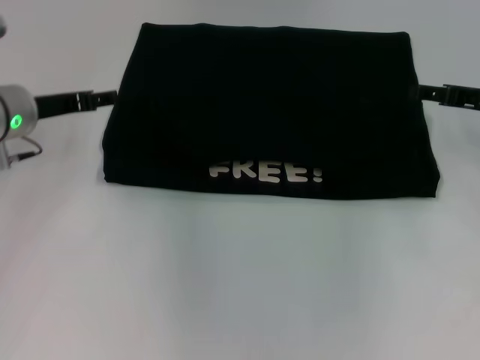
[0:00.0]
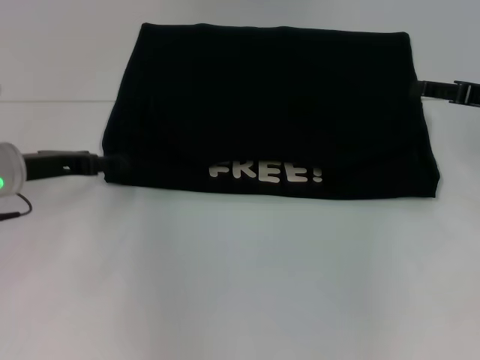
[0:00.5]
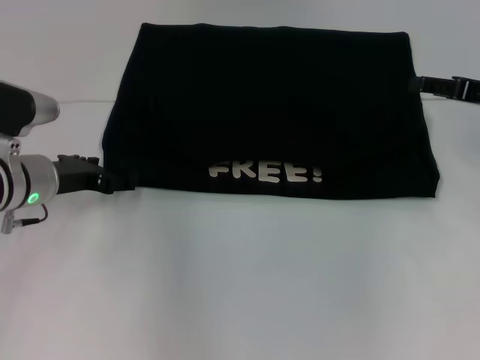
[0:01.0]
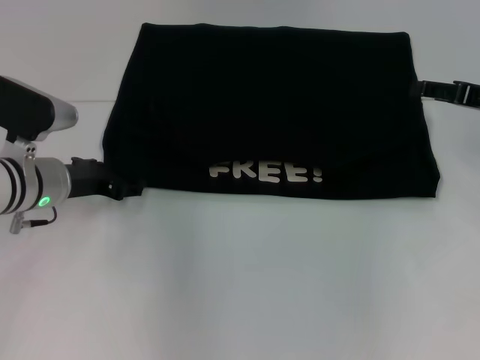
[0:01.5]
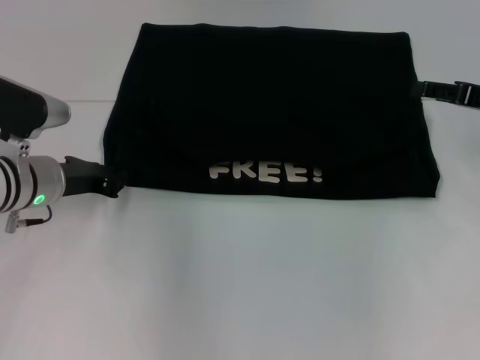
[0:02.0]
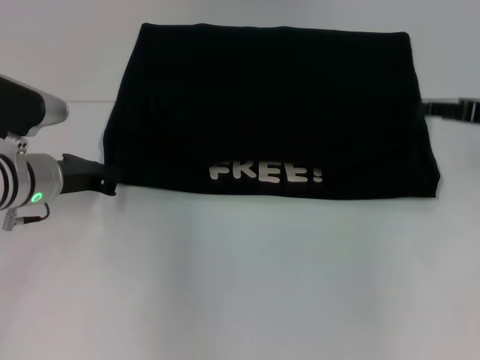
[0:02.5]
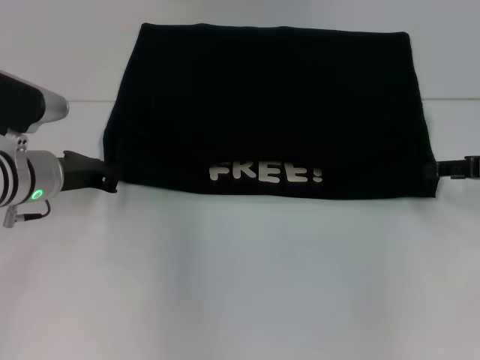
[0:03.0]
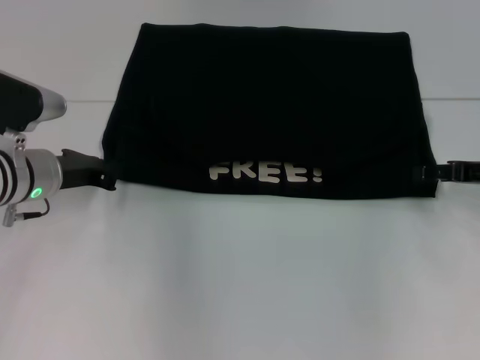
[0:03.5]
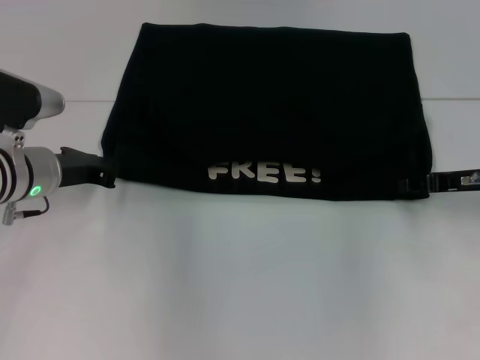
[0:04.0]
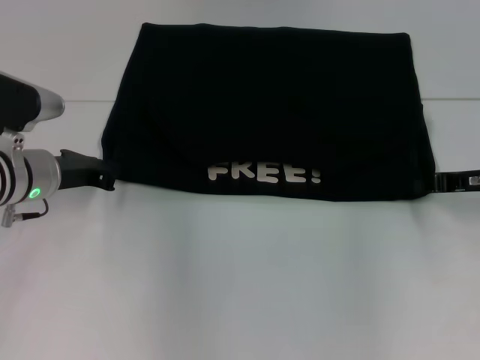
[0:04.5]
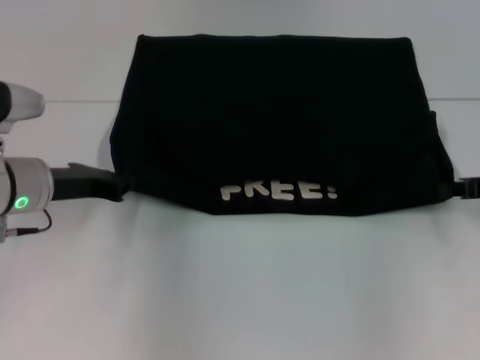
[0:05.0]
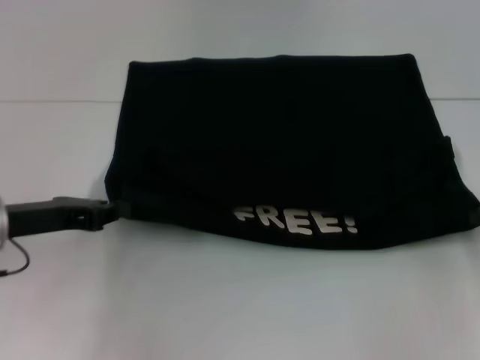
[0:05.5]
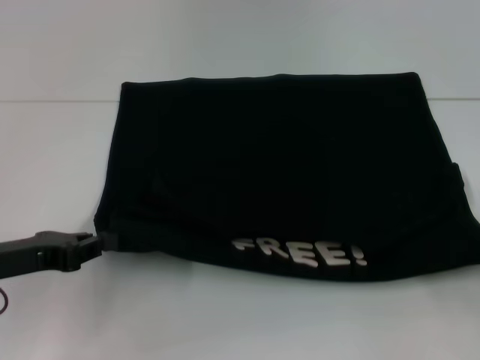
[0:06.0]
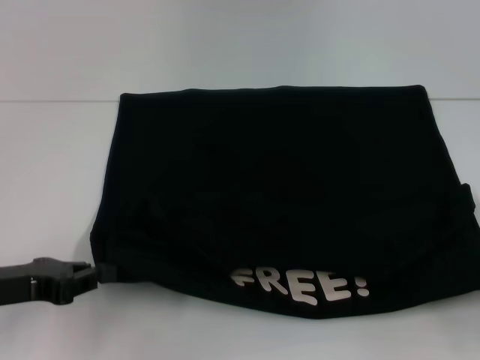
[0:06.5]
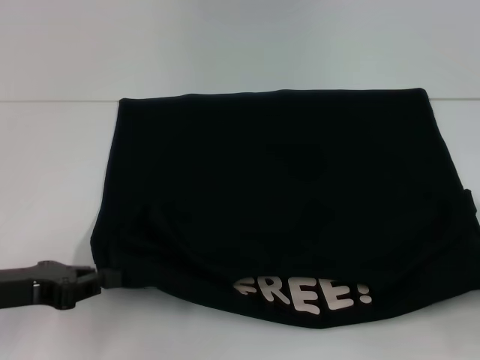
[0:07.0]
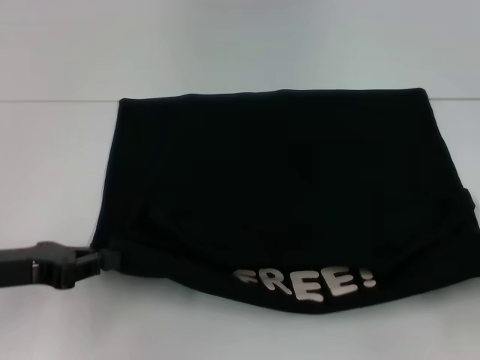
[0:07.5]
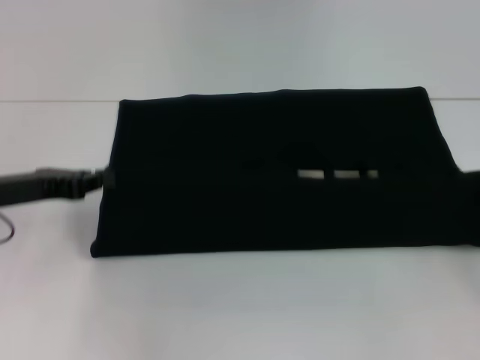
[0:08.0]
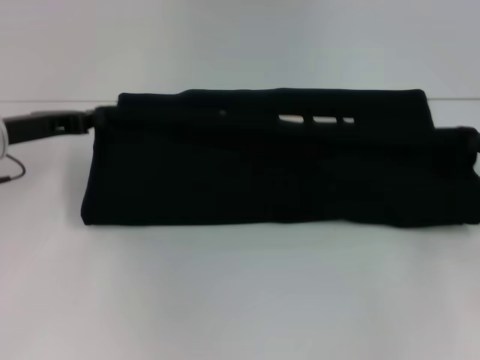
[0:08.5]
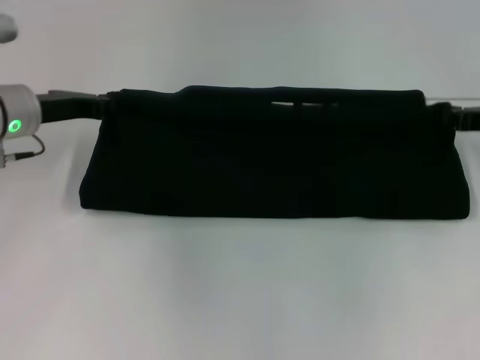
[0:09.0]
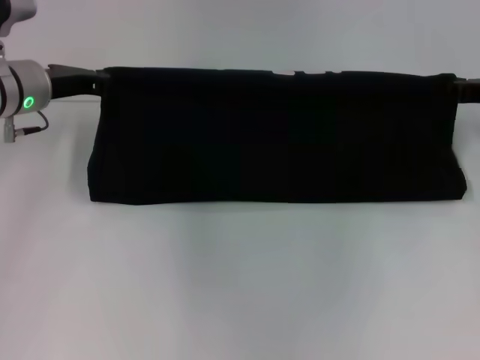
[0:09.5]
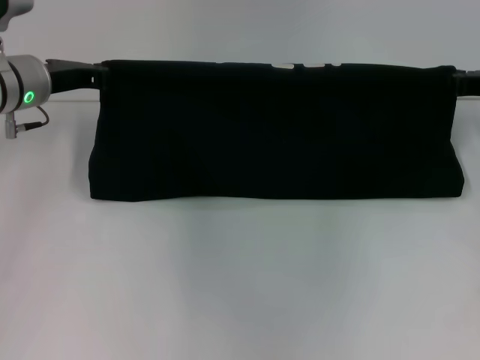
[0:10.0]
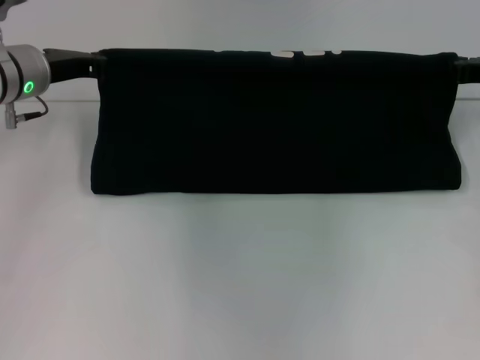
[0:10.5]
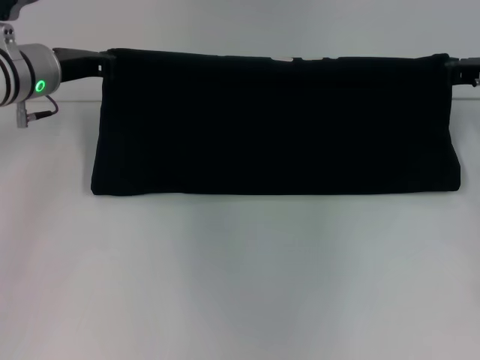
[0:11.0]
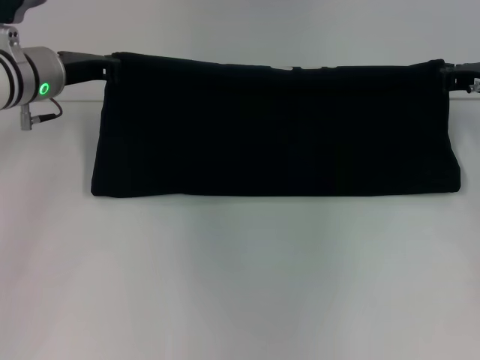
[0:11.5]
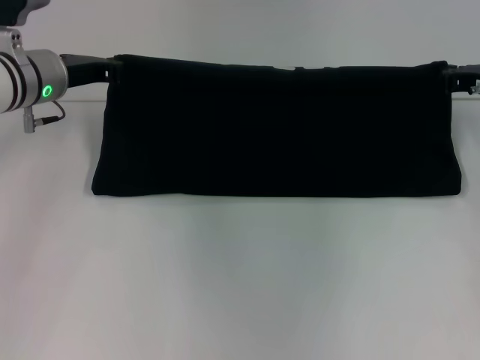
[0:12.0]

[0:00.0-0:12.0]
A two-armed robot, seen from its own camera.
Step, 0.0 to 6.5 s: Pull the clothes with your left hand.
Step, 0.0 to 6.5 s: Pull the clothes with your right hand.
0.0 to 2.0 s: The left gripper moves roughly 5 cm, and closes.
2.0 to 4.0 s: The right gripper travels downward by roughly 5 cm.
4.0 to 6.0 s: The left gripper goes about 15 cm backward and to the left. The right gripper goes roughly 15 cm backward and to the right, and closes up.
6.0 to 8.0 s: The left gripper is displaced forward by some 5 cm.
8.0 to 10.0 s: The right gripper goes some 20 cm forward and to the left; the left gripper is displaced forward by about 10 cm.
10.0 to 12.0 s: There are only small adjustments of the grippers.

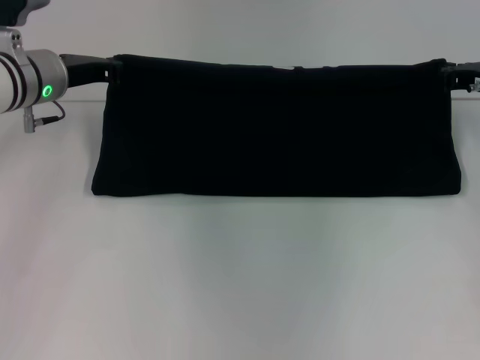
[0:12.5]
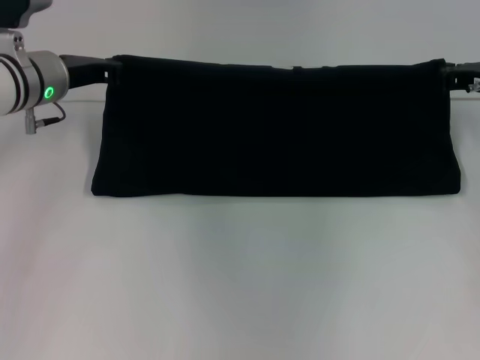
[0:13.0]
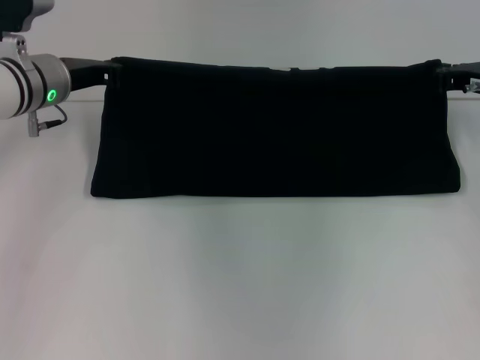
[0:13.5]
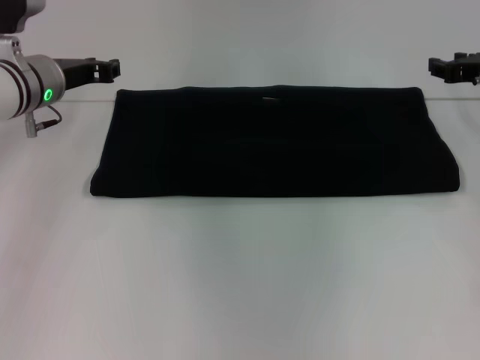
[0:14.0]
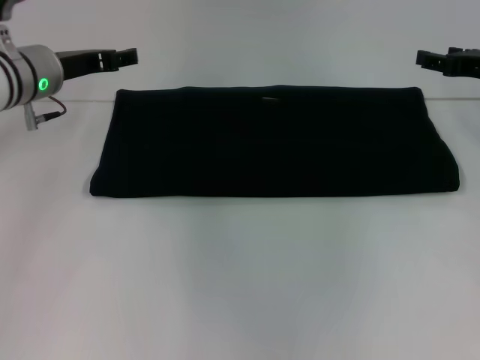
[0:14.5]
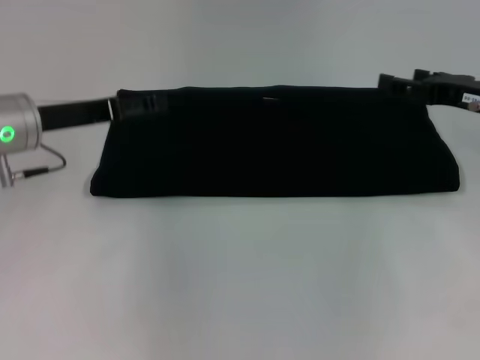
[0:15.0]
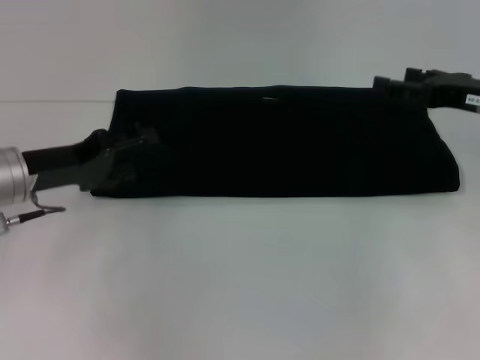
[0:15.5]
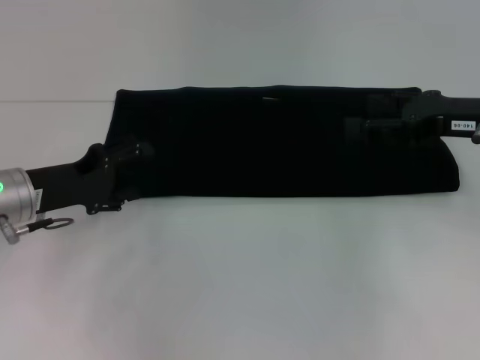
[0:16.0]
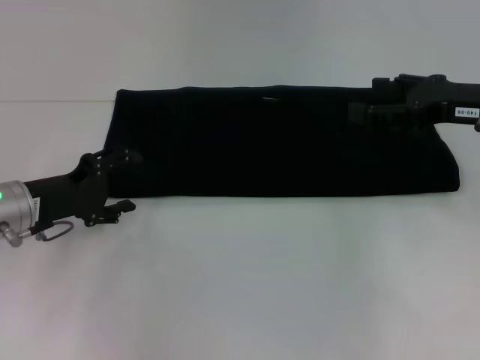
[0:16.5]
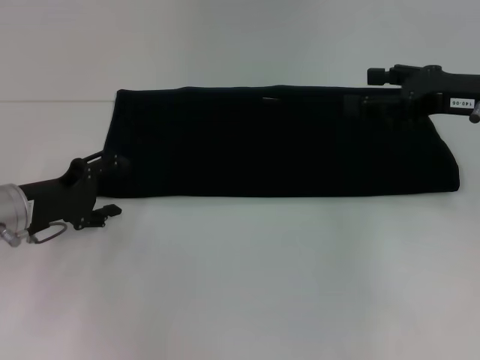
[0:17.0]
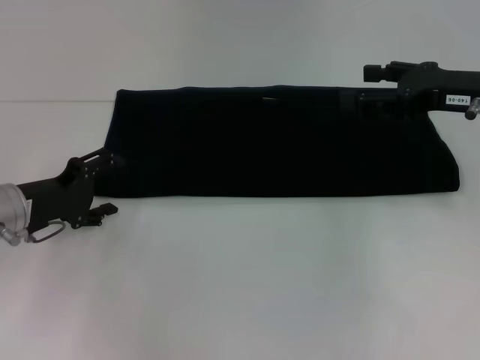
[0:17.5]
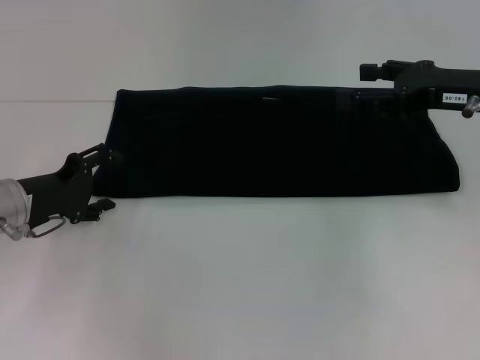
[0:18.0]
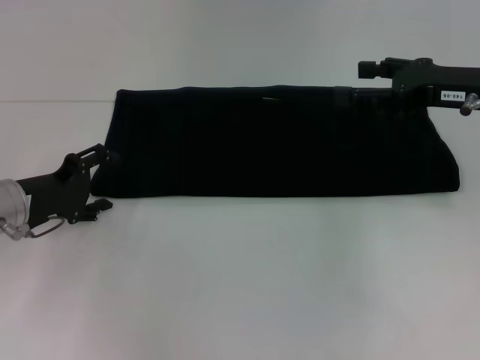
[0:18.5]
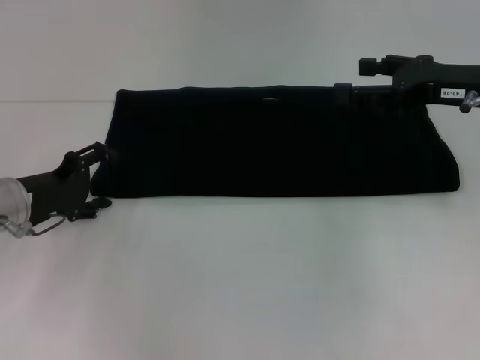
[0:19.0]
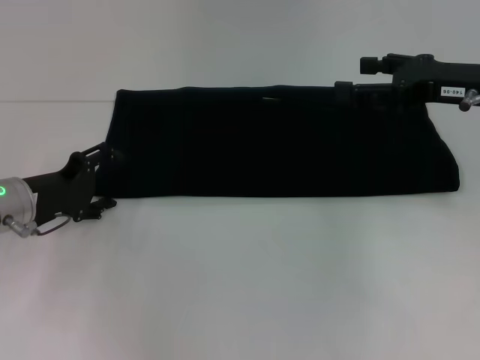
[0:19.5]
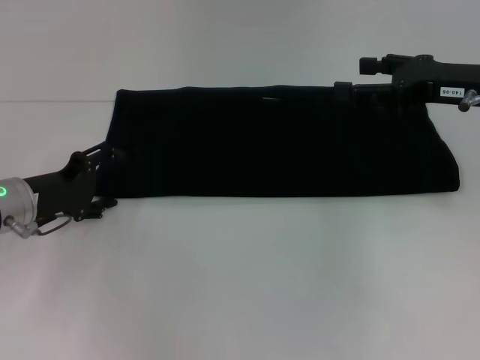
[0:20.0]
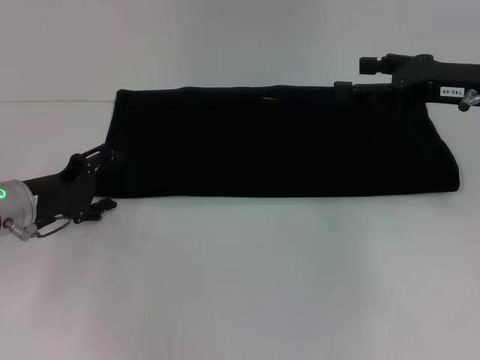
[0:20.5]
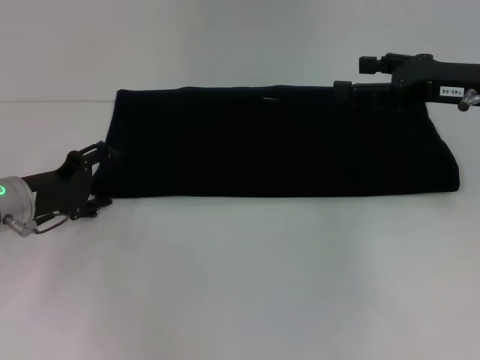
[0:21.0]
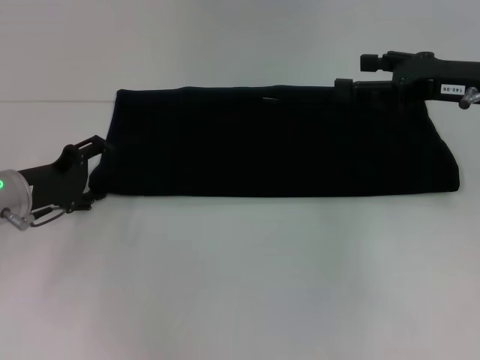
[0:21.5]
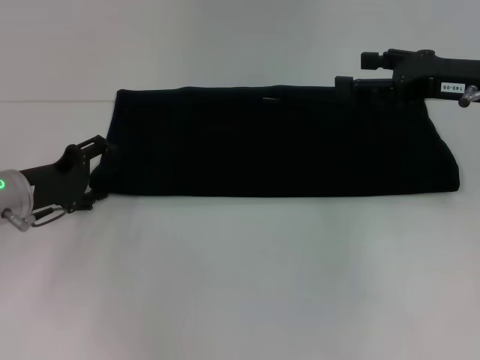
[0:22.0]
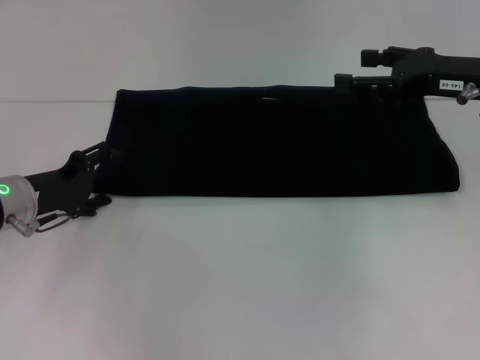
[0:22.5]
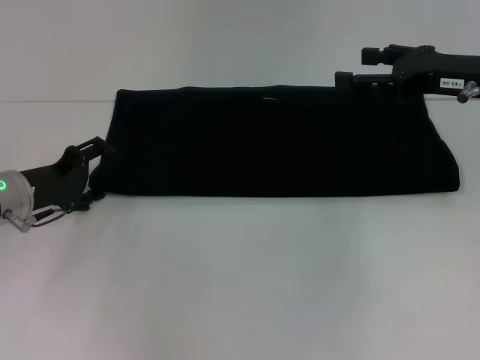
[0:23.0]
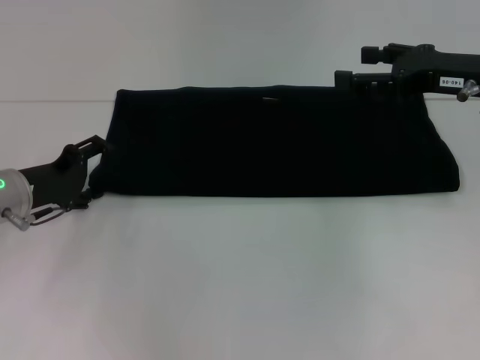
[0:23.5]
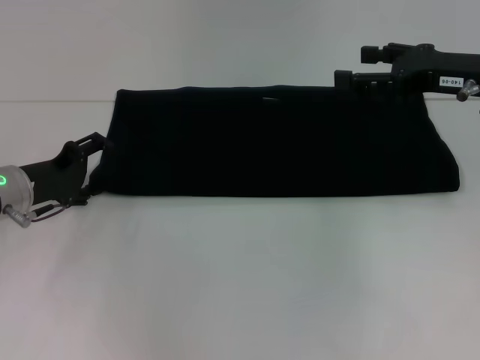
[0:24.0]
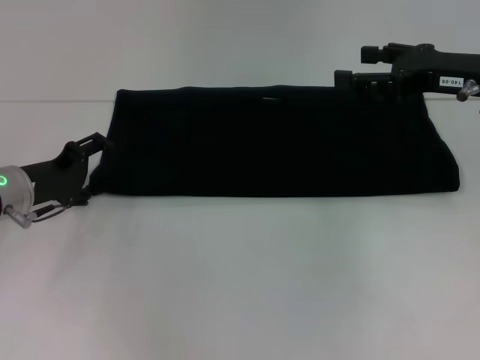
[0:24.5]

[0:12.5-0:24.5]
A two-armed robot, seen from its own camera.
12.5 to 14.5 s: The right gripper opens. Meanwhile the left gripper opens up.
14.5 to 16.5 s: The left gripper heads backward and downward, covering some 15 cm. Meanwhile the right gripper goes some 5 cm backward.
16.5 to 18.5 s: The grippers stay close to where they were, moving slightly.
18.5 to 20.5 s: The two grippers keep their place.
20.5 to 22.5 s: The grippers stay close to where they were, moving slightly.
22.5 to 24.5 s: The two grippers keep their place.

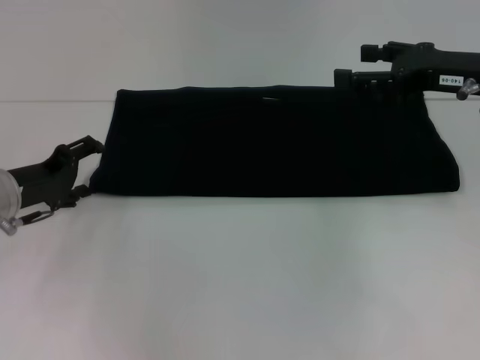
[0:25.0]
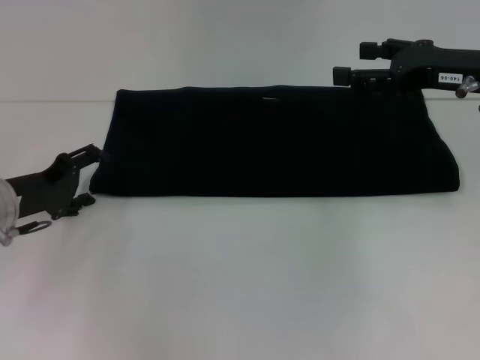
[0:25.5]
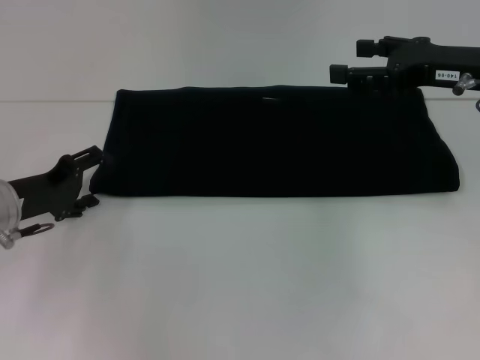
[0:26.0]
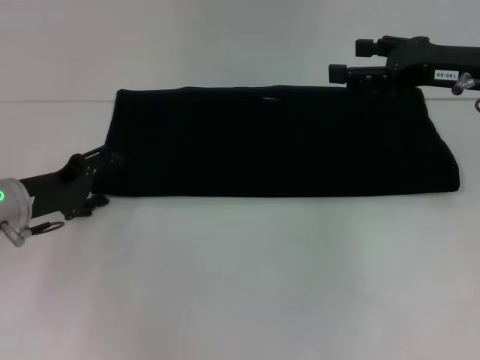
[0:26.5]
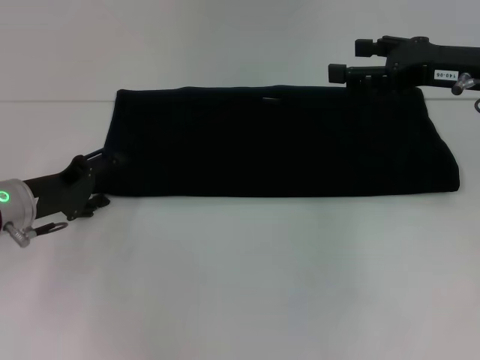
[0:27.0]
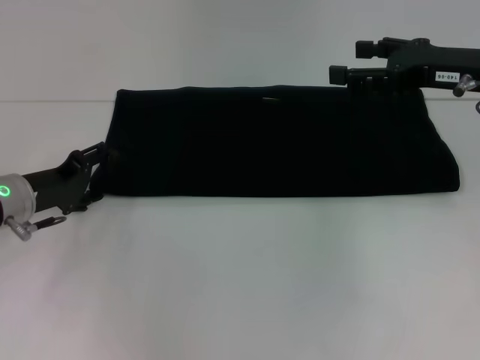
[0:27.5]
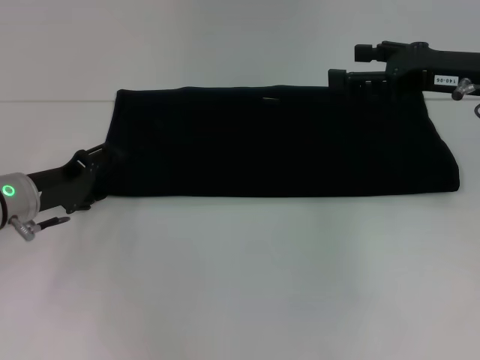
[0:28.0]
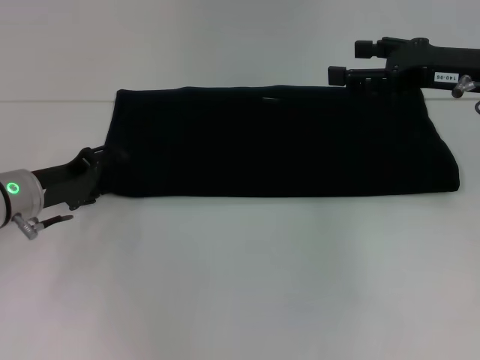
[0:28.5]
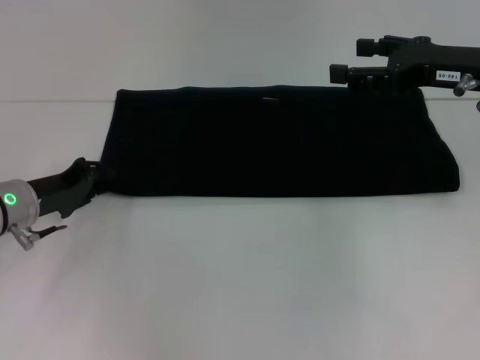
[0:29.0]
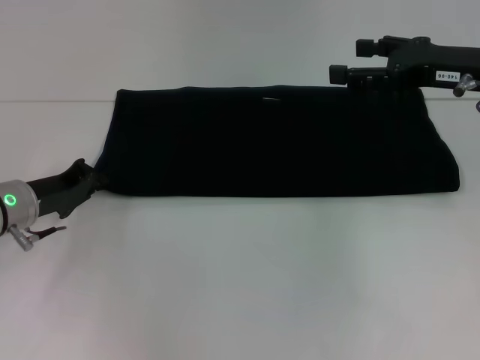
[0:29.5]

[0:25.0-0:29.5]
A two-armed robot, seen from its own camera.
25.0 to 27.0 s: The grippers move only a little.
27.0 to 29.5 s: The left gripper closes up.
